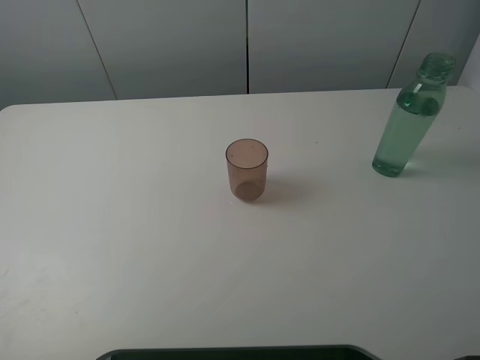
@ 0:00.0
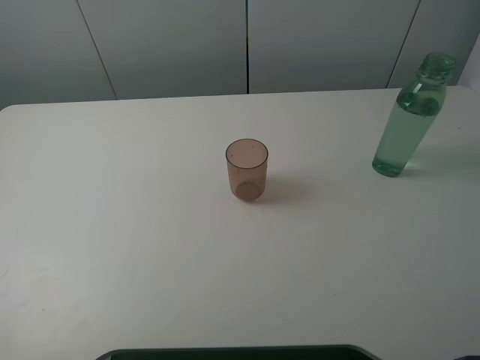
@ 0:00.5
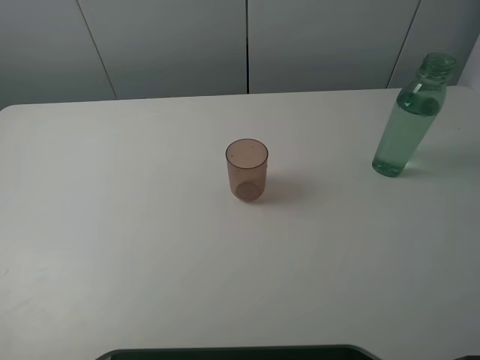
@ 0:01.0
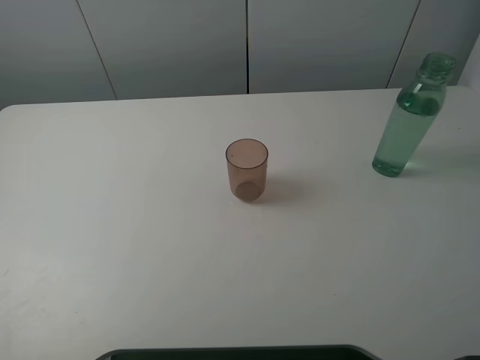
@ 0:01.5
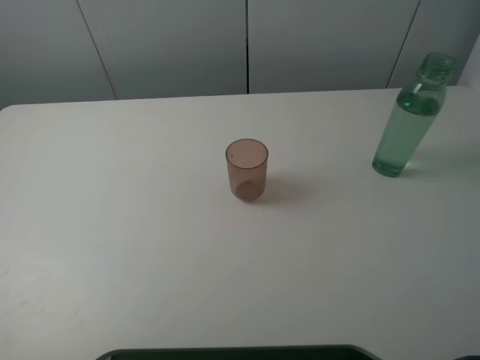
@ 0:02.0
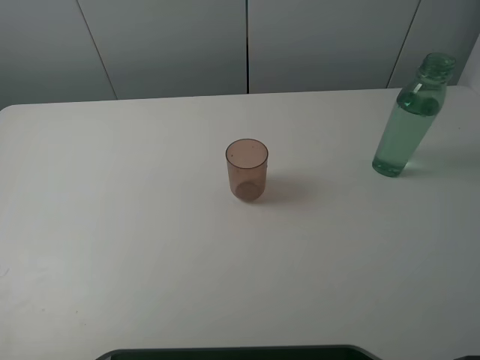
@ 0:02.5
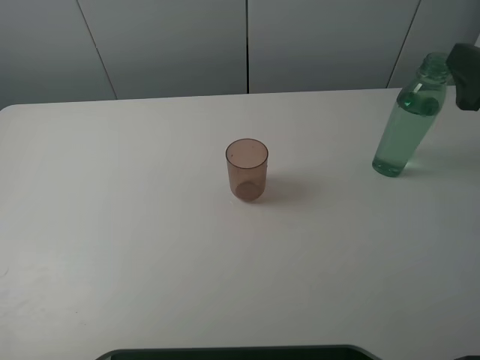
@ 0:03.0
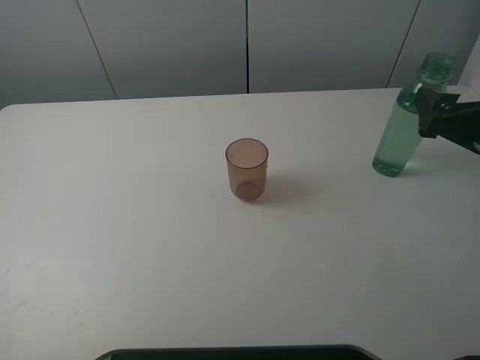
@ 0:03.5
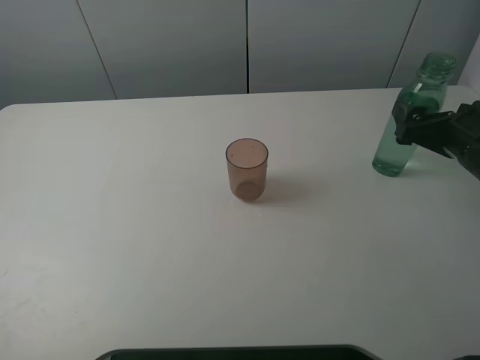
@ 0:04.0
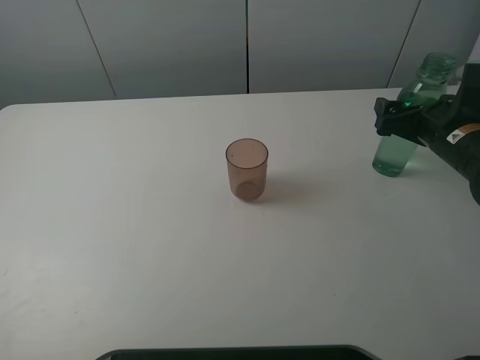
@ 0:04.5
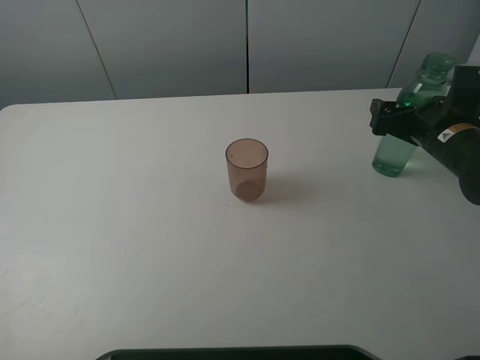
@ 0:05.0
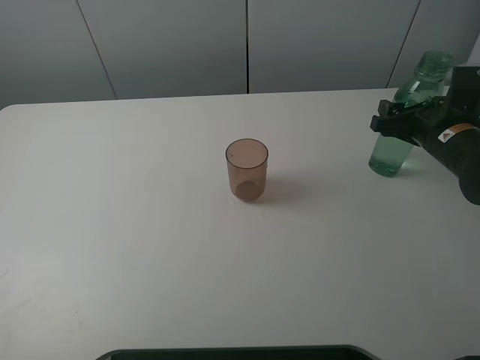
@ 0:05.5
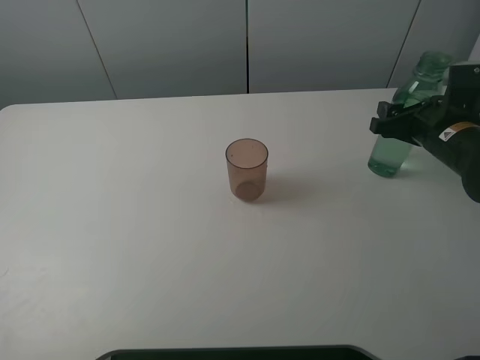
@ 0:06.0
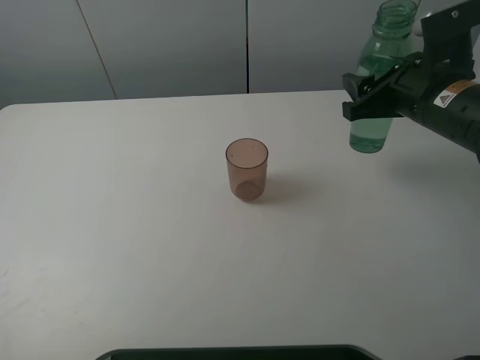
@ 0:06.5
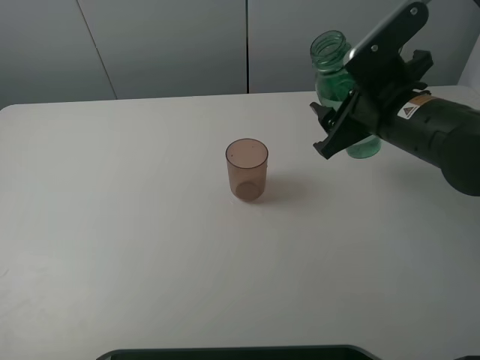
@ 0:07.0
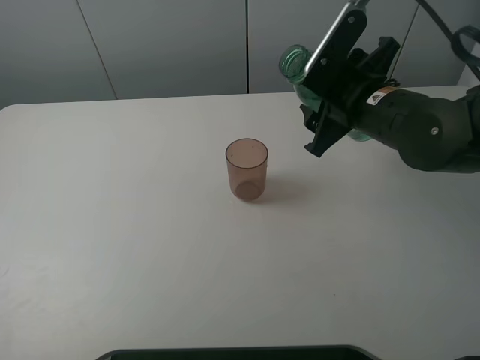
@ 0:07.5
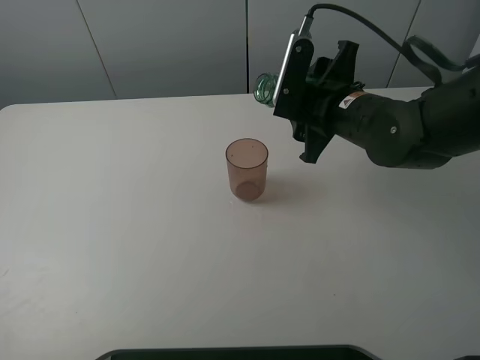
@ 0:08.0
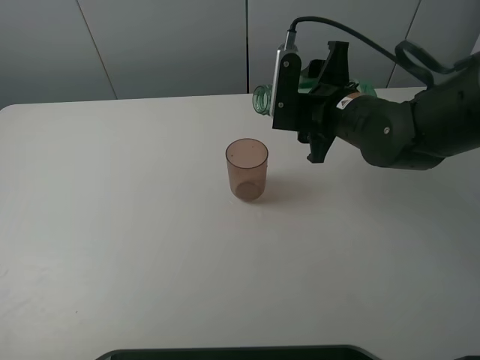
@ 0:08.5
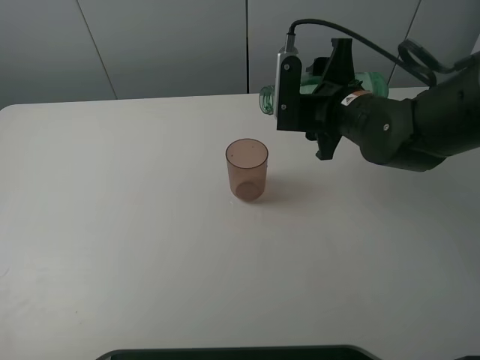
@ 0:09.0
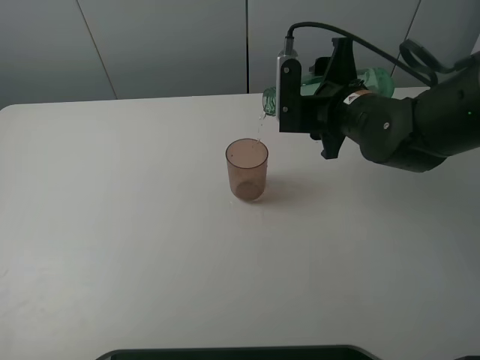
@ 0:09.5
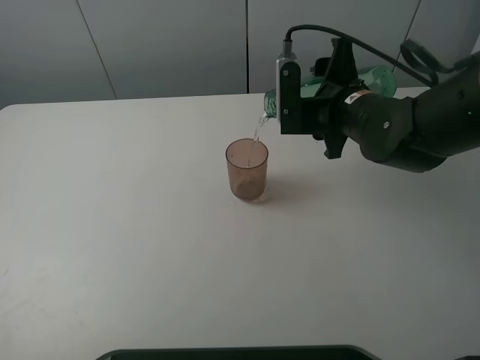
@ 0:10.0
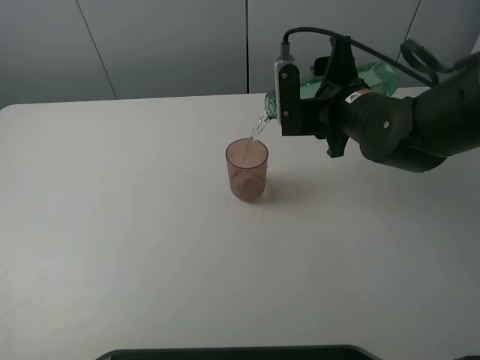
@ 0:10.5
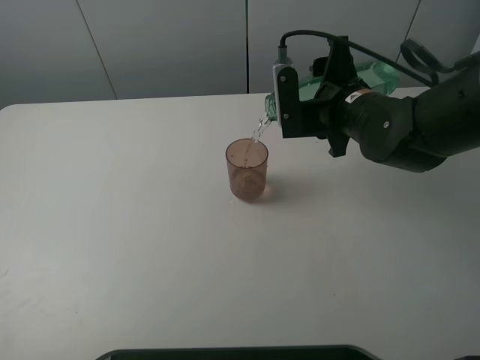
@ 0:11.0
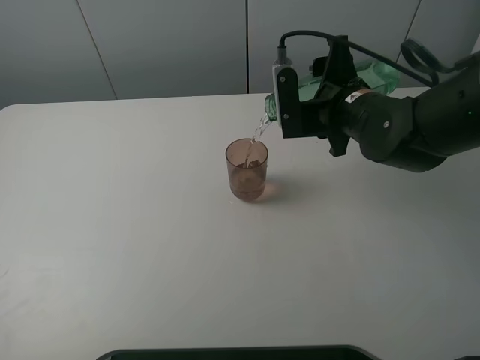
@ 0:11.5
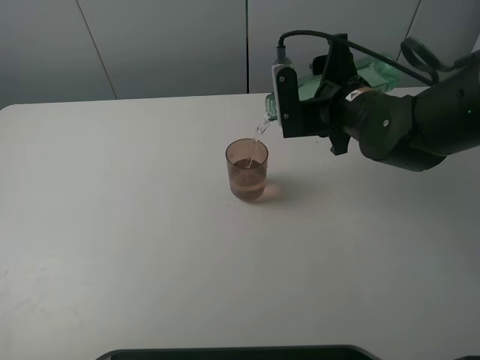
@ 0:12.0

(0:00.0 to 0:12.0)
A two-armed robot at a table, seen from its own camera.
Task of the whole recording: pick up the bottle filled with water and pour it into the pink cup.
Step, 0:00.0 - 0:05.0: Grasp the green bottle with the right gripper.
0:02.0 - 0:04.0: The right gripper moves forward and downward, roughly 30 cm.
0:04.0 - 0:06.0: The right gripper goes some 5 cm forward, and closes its fingers.
0:06.0 - 0:08.0: The right gripper travels to the left by roughly 15 cm.
0:08.0 - 0:10.0: The grippers make only small movements.
0:10.0 - 0:12.0: The grippers stay close to where they were, moving slightly.

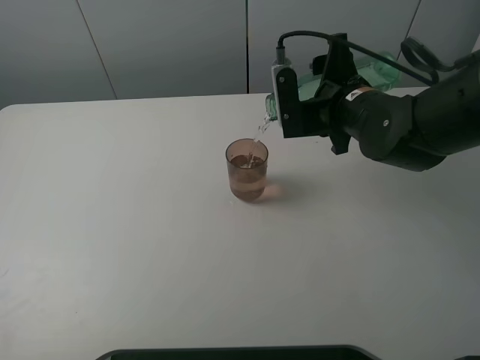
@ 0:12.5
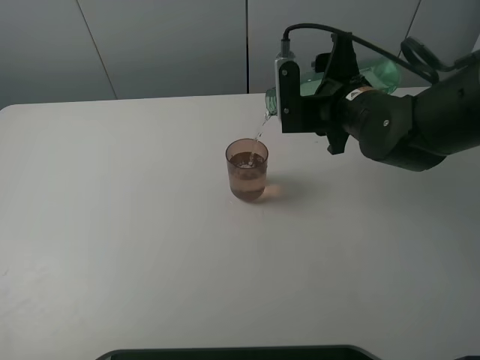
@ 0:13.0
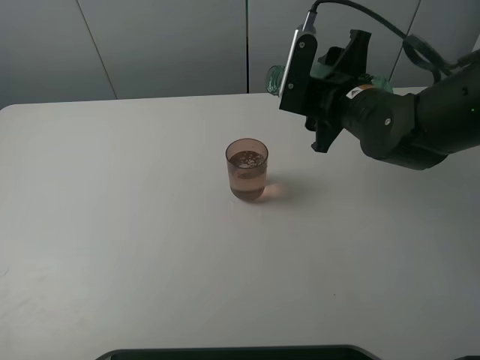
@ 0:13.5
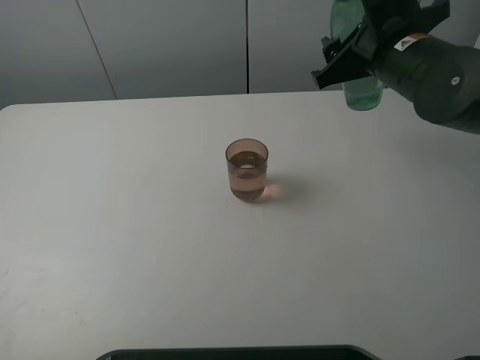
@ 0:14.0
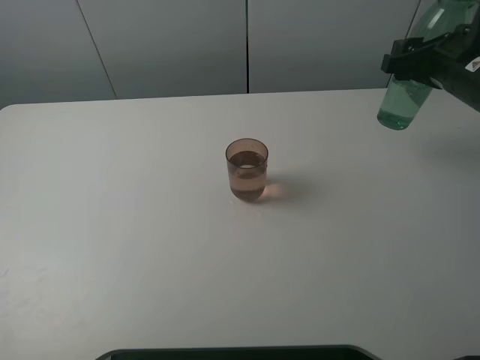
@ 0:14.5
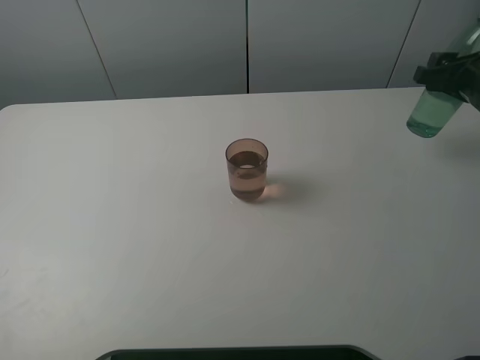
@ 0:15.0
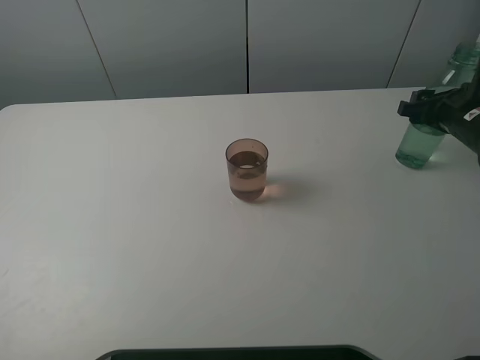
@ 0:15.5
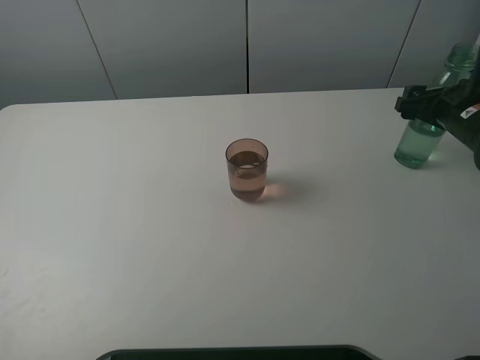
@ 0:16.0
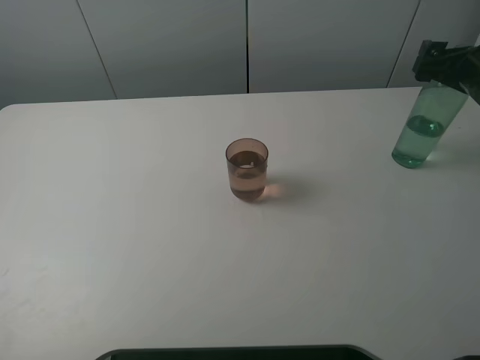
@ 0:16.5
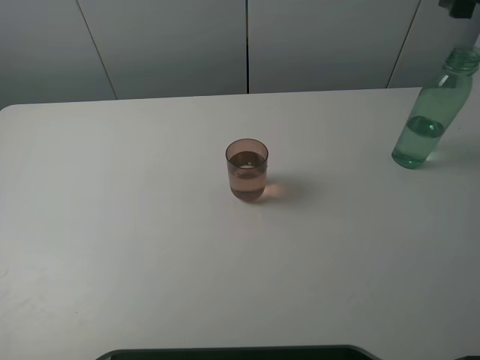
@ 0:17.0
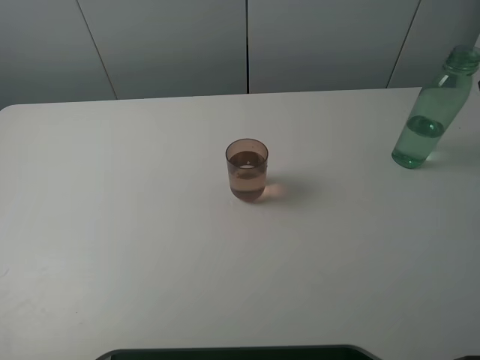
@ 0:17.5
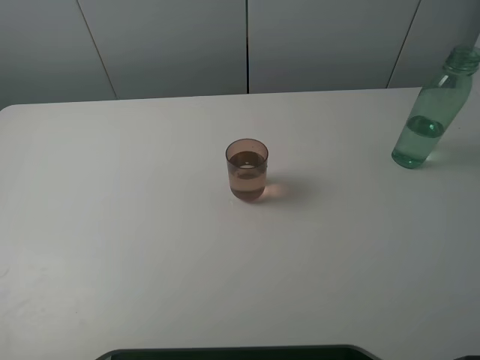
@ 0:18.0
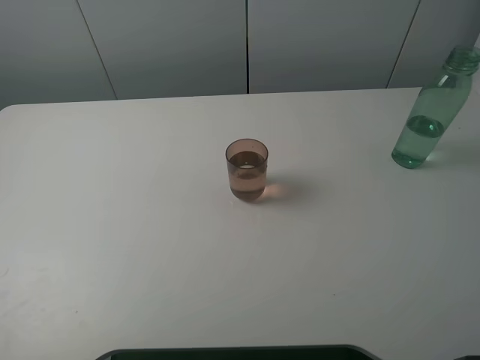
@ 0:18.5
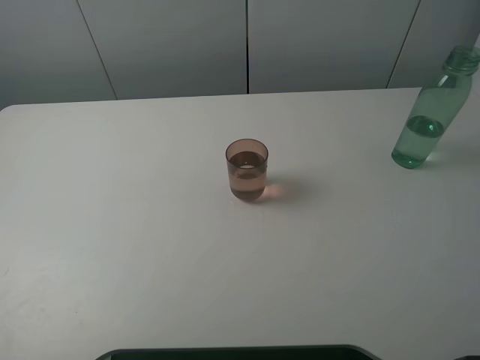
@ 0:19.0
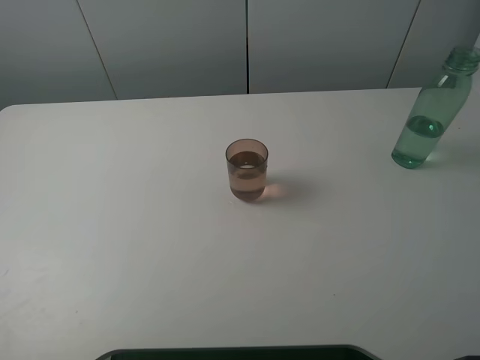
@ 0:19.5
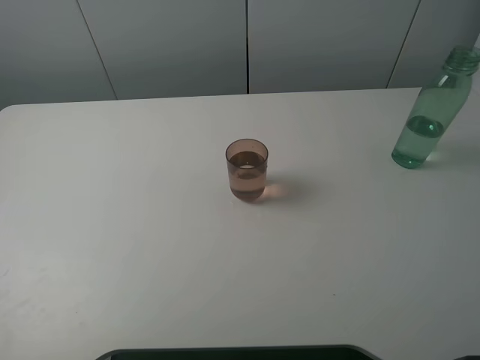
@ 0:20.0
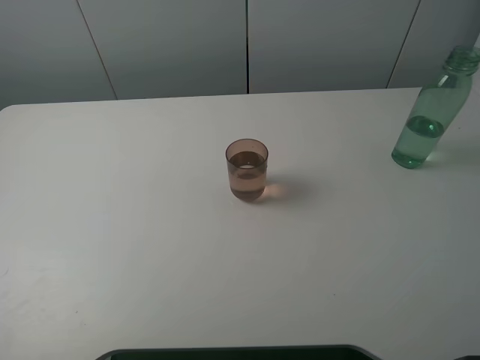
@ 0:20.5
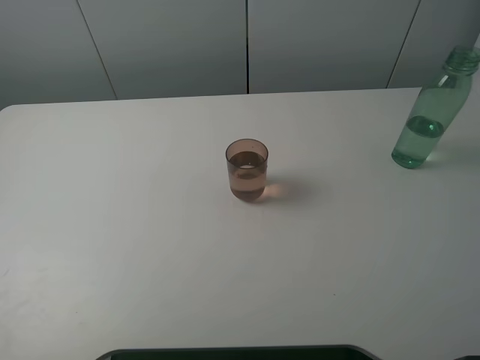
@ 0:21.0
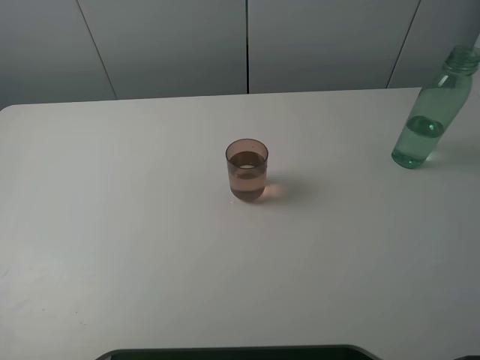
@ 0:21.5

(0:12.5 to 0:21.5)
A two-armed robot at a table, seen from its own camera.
Task of the whole recording: pick up the bottle filled with water and pour it into the pink cup.
Step, 0:14.0 - 0:16.0: Place the green bottle with the right gripper.
0:12.5 - 0:14.5: The right gripper is displaced to the right by approximately 15 cm.
0:14.5 - 0:17.0: The right gripper shifts approximately 10 cm upward, and opens its fingers.
0:19.5 - 0:21.5: Both grippers stay put.

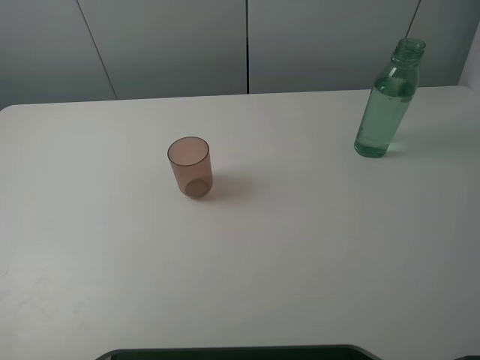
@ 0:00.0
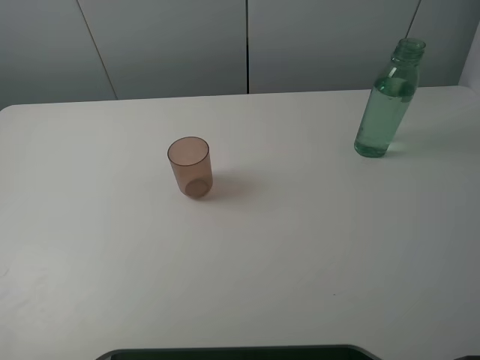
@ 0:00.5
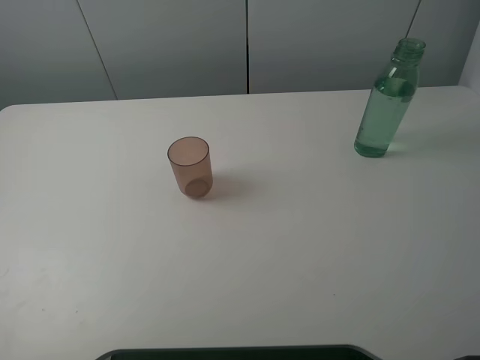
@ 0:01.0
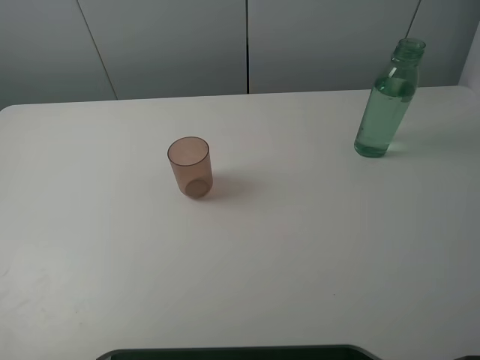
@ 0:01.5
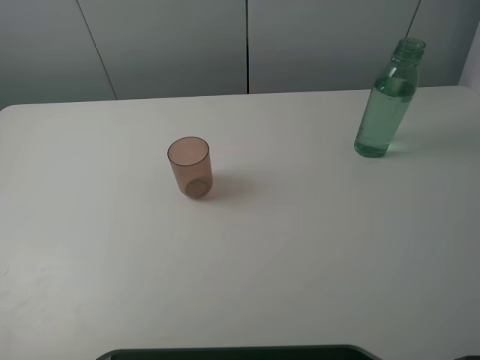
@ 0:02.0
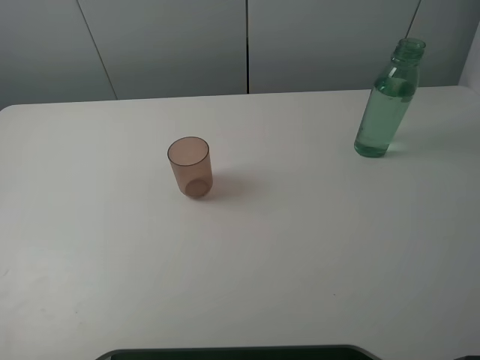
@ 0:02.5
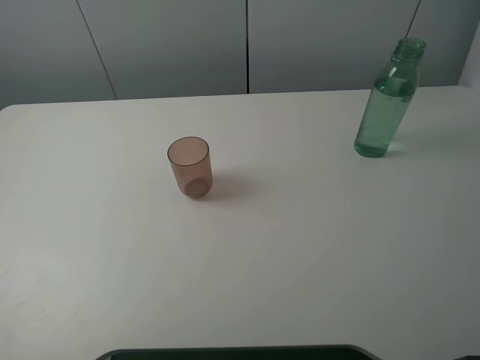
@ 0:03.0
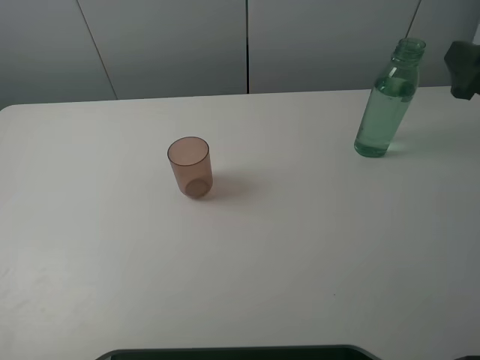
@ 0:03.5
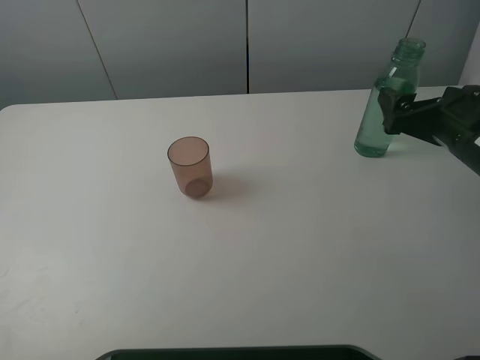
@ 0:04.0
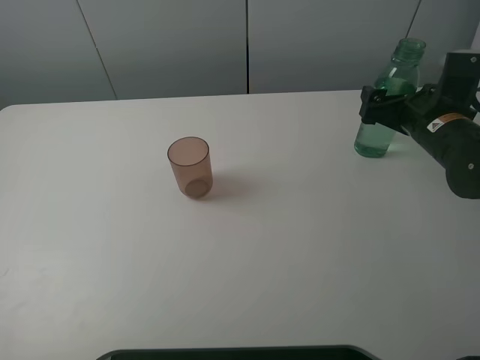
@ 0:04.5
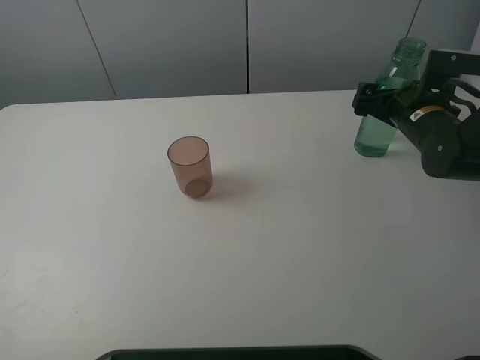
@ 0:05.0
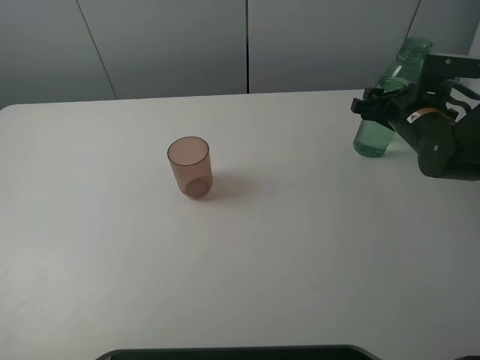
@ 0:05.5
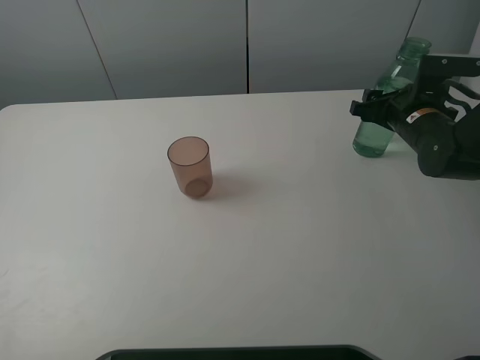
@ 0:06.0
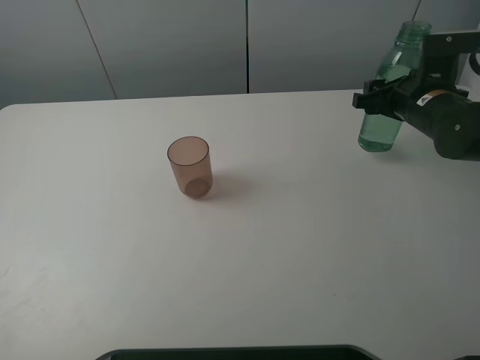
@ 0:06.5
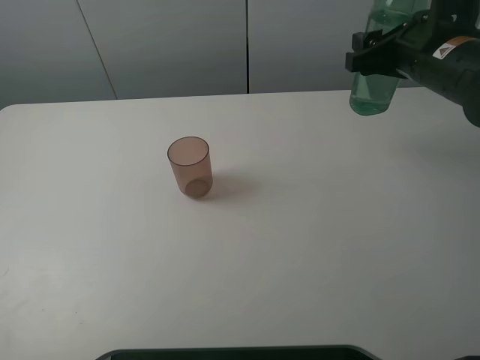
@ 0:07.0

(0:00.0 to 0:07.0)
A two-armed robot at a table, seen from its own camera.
Task of the whole recording: pick up the bottle filled with water and pour it into the pink cup.
Step, 0:00.0 - 0:05.5: Grasp the green bottle with the right gripper.
0:00.0 - 0:02.0: The two grippers keep their place.
0:02.0 - 0:03.5: The right gripper shifts some 20 cm forward.
0:03.5 - 0:05.0: The right gripper moves forward and downward, about 15 cm.
0:05.0 - 0:07.0: The right gripper travels upward by approximately 10 cm, and closes up.
